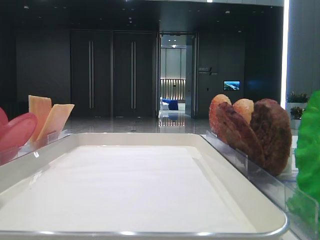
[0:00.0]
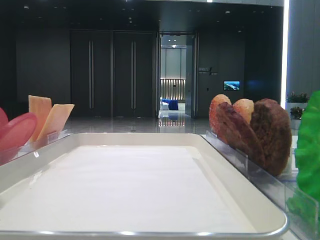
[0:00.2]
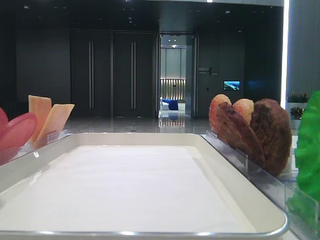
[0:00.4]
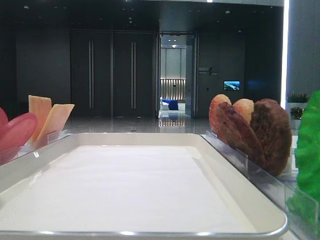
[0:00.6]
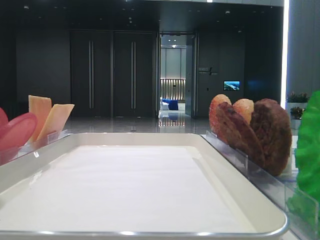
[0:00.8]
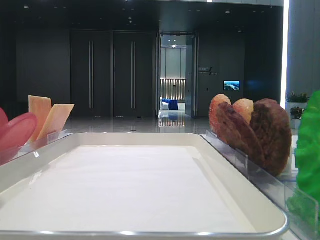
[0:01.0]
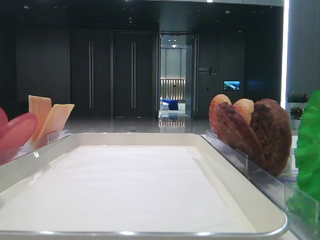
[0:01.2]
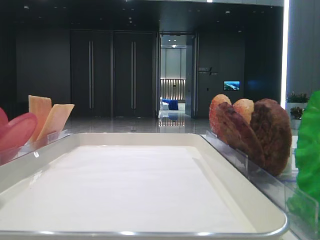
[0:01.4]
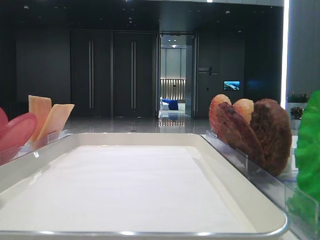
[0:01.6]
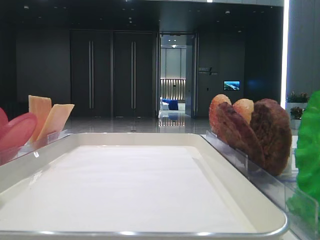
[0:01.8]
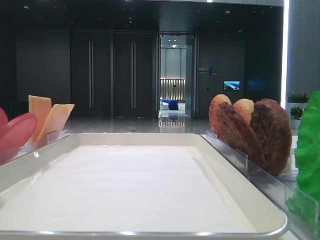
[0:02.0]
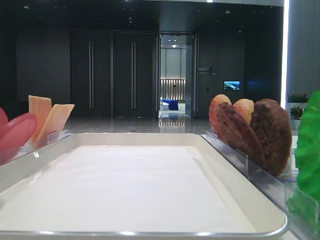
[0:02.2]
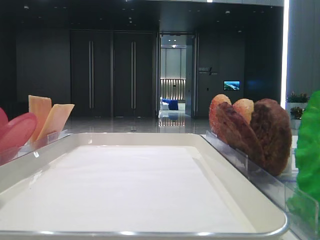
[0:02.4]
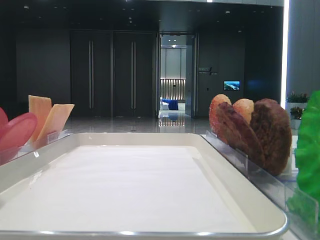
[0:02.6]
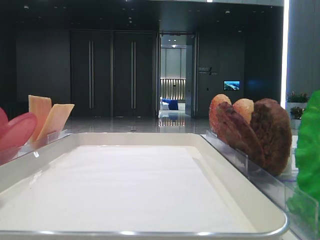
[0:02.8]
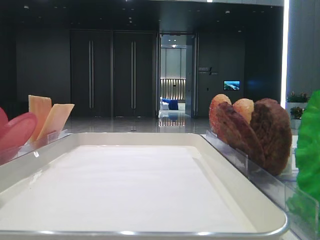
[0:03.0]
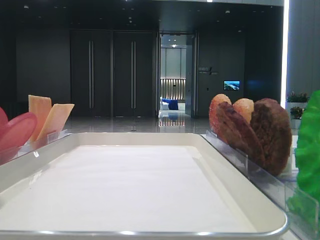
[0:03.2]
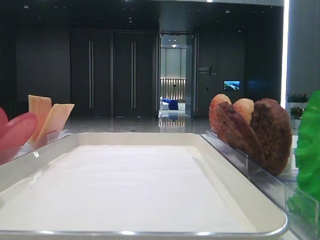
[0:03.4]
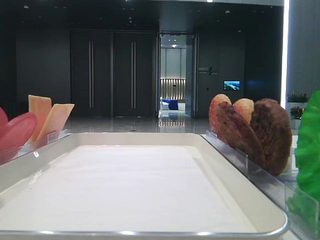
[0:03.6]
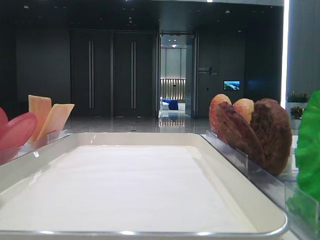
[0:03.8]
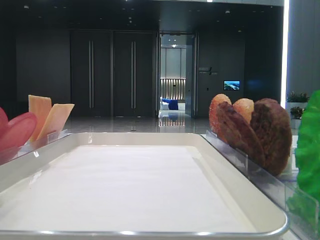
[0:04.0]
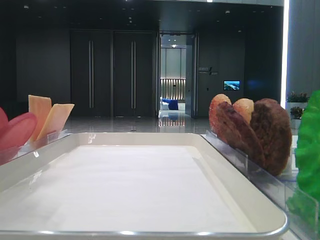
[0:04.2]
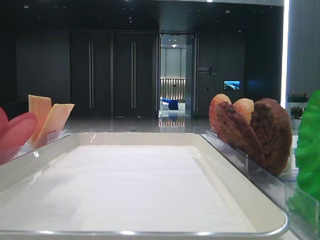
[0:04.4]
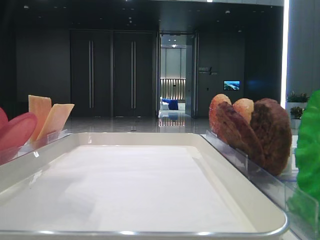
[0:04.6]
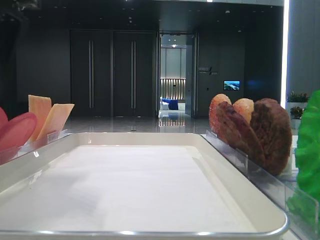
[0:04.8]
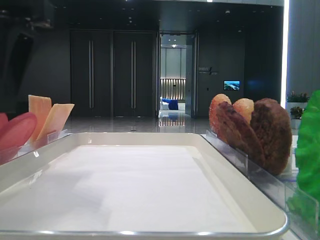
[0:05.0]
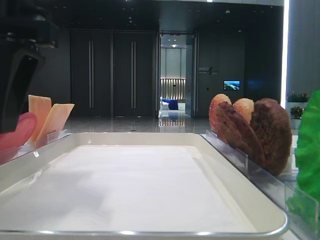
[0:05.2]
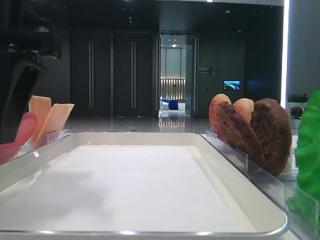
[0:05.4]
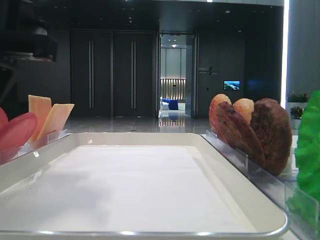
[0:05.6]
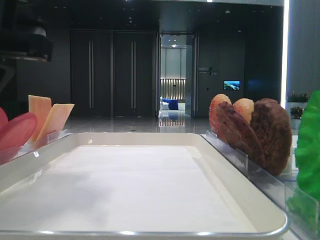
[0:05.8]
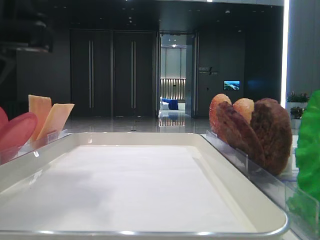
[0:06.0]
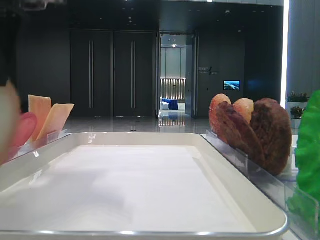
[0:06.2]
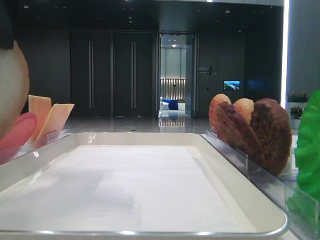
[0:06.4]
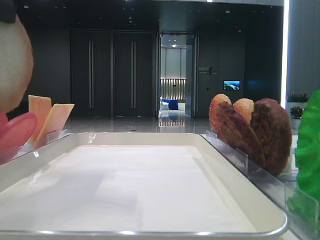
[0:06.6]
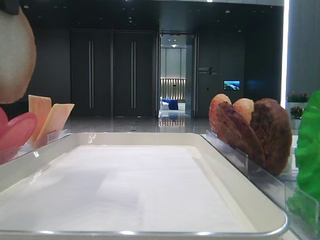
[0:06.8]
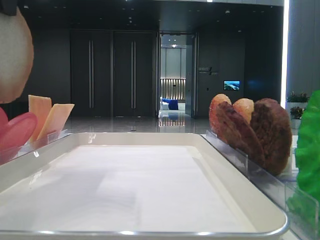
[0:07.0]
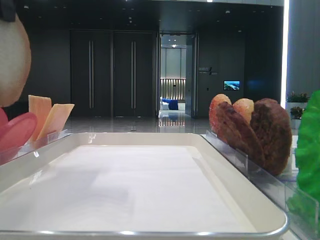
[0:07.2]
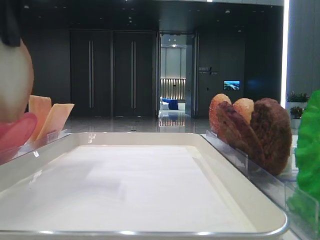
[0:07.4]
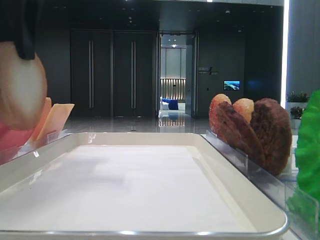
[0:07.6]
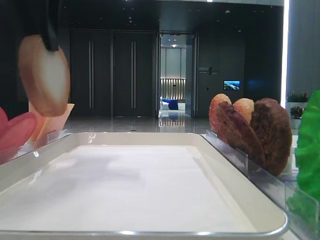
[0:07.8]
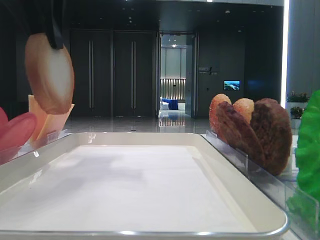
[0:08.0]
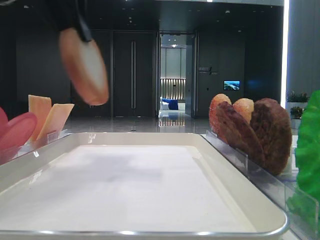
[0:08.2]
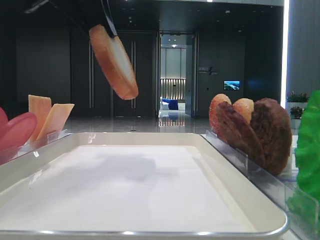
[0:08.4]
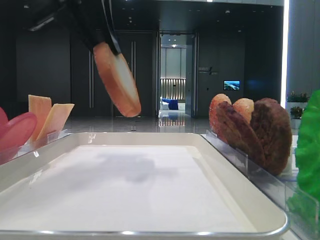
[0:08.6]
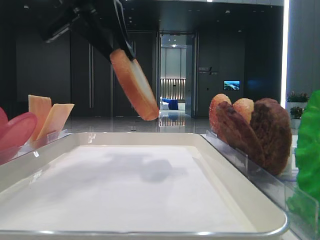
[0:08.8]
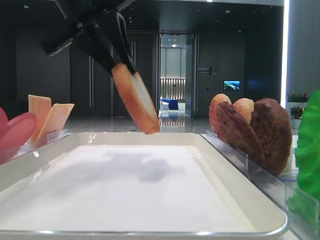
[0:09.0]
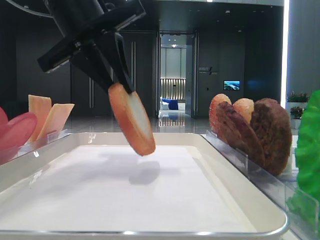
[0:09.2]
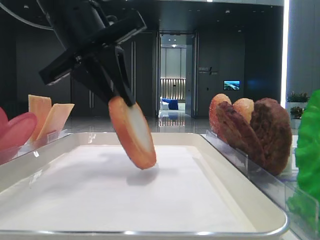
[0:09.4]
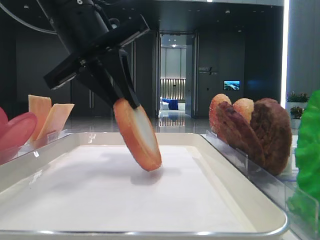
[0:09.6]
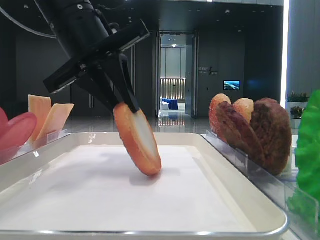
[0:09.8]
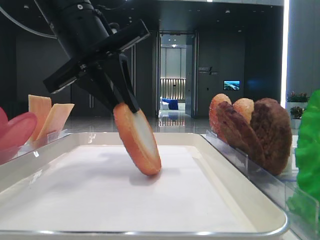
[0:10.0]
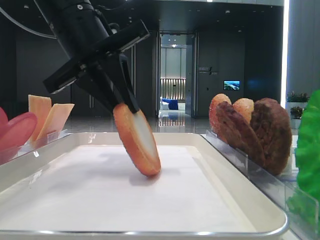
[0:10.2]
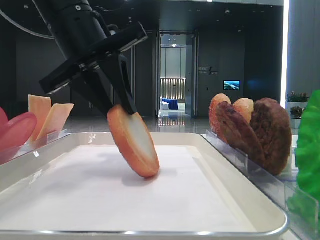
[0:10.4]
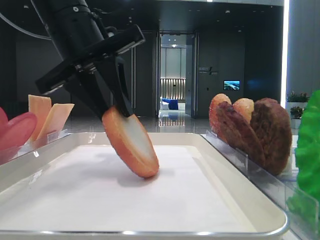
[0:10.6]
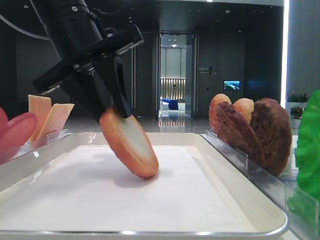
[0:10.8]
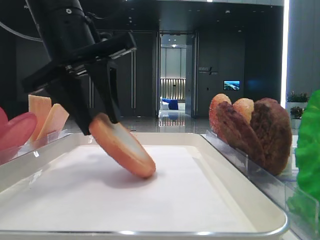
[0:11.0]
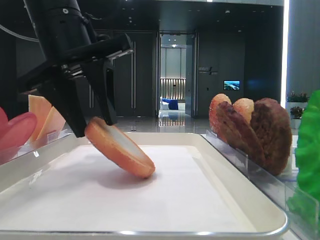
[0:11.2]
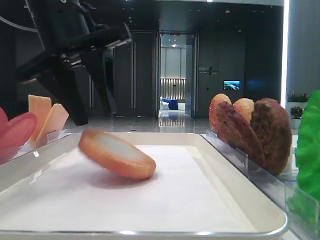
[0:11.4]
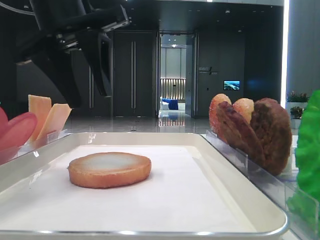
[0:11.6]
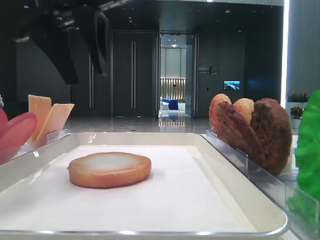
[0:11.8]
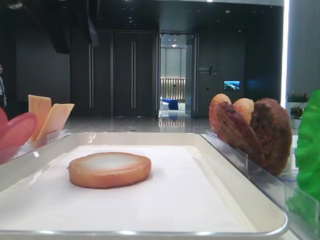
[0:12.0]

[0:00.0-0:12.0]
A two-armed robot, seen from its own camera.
Step, 0:00.0 to 0:06.0: Pick up the bottom bread with the left hand.
Step, 0:06.2 to 0:11.4: Place the bread on the tray with the left hand.
0:03.0 to 0:04.4: The left gripper goes roughly 15 cm to the right and forward.
0:04.4 to 0:06.0: The left gripper goes roughly 5 cm downward, and closes.
0:06.0 to 0:07.6: The left gripper moves upward, roughly 5 cm.
0:07.6 to 0:09.0: The left gripper is displaced to the right by approximately 5 cm.
0:09.0 to 0:10.4: The left gripper goes some 5 cm downward.
0:10.4 to 0:12.0: The left gripper heads upward, covering some 10 cm.

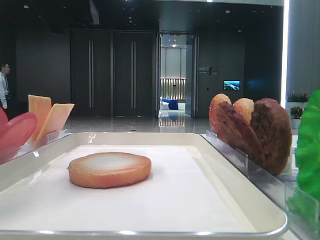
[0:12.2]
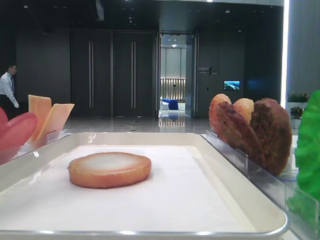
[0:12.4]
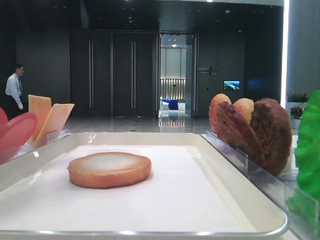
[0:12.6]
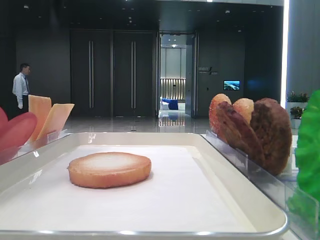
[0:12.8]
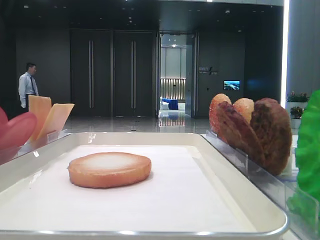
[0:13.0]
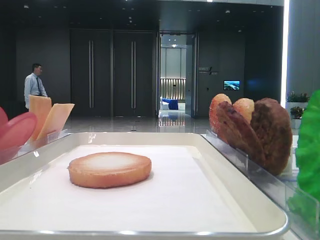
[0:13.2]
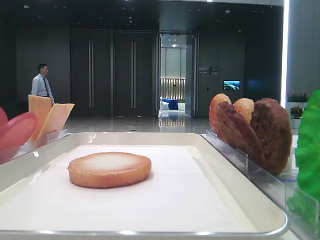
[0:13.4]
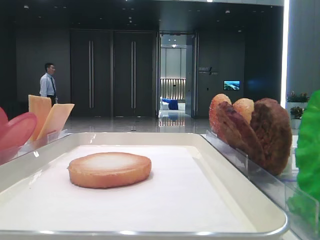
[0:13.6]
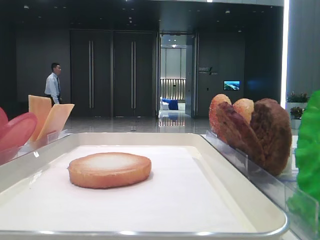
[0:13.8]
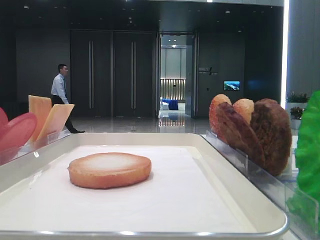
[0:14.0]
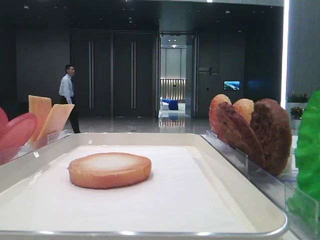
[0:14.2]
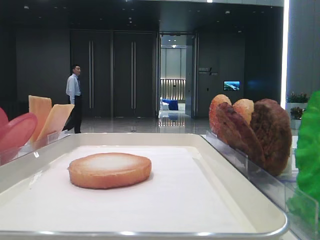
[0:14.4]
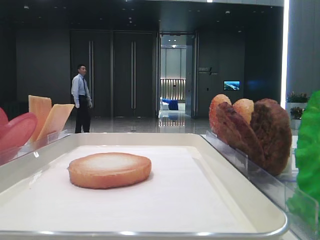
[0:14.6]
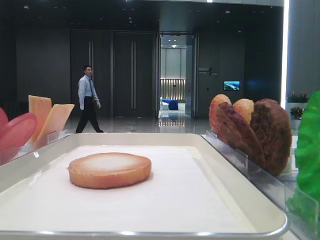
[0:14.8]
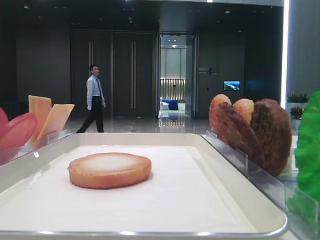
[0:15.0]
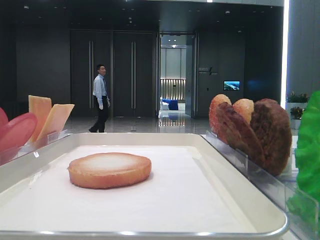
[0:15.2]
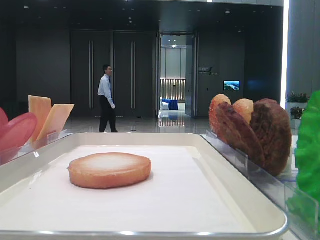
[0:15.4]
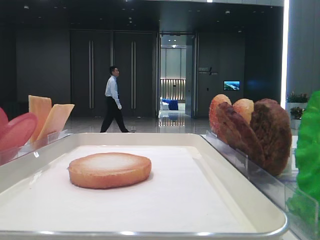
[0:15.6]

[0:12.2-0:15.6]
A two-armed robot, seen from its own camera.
0:12.2 to 0:13.8: The left gripper heads to the left and backward, covering some 25 cm, and opens.
0:13.8 to 0:15.6: The left gripper travels backward by approximately 15 cm.

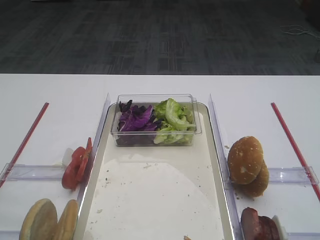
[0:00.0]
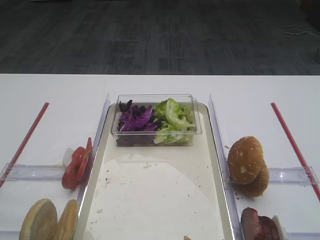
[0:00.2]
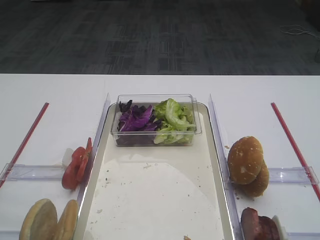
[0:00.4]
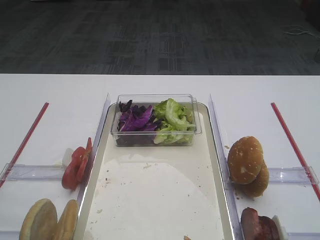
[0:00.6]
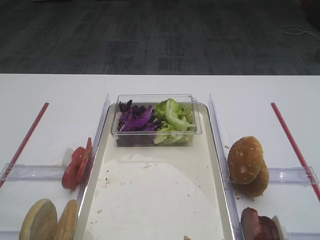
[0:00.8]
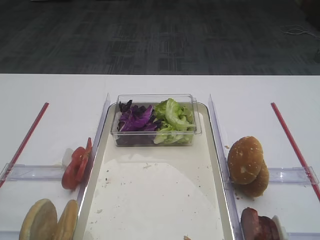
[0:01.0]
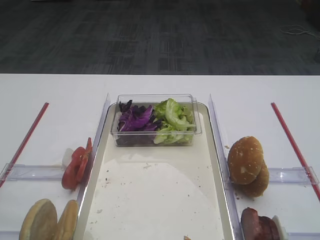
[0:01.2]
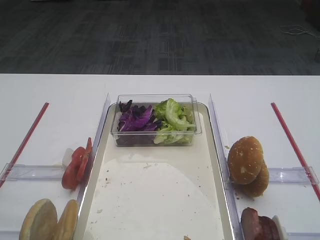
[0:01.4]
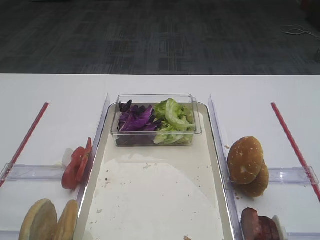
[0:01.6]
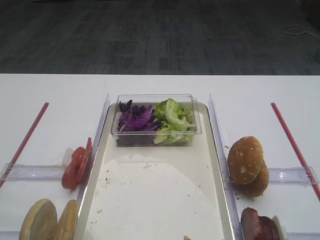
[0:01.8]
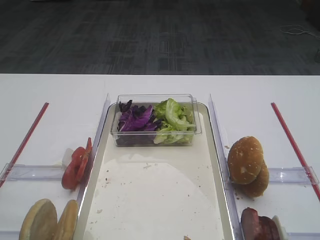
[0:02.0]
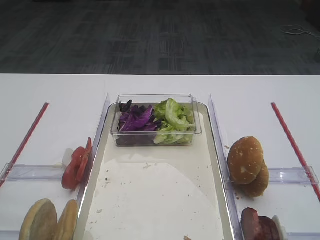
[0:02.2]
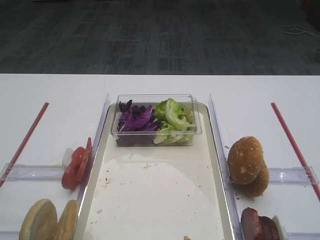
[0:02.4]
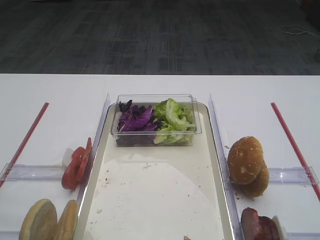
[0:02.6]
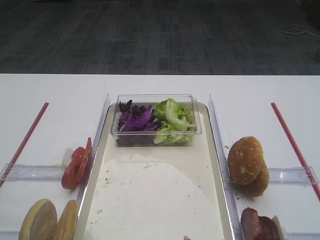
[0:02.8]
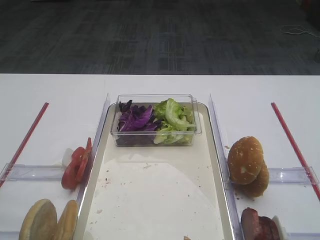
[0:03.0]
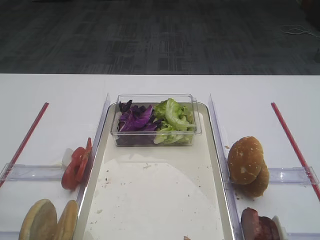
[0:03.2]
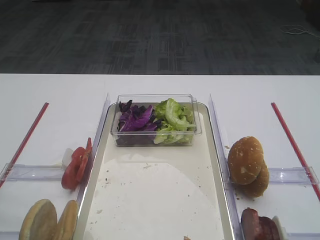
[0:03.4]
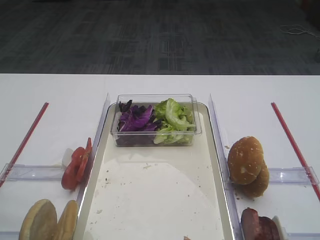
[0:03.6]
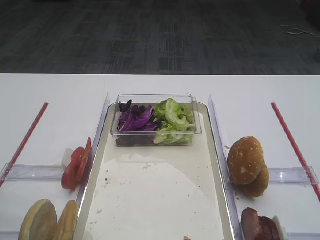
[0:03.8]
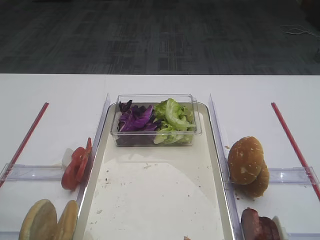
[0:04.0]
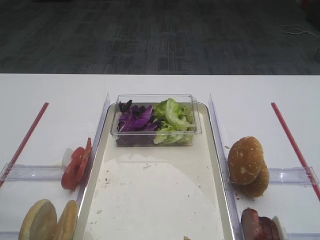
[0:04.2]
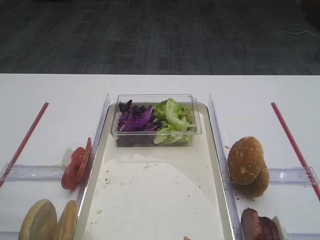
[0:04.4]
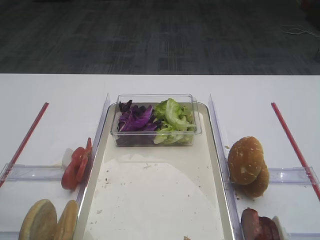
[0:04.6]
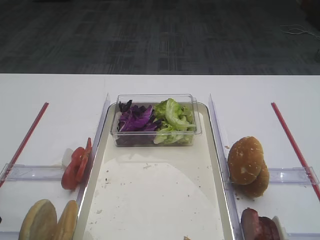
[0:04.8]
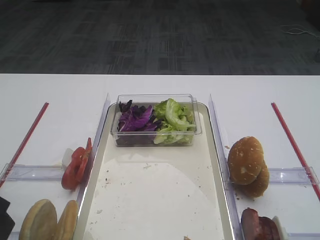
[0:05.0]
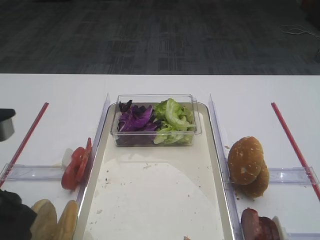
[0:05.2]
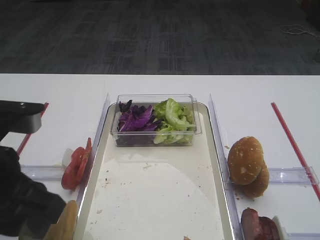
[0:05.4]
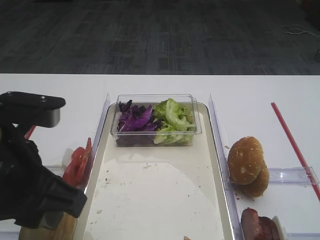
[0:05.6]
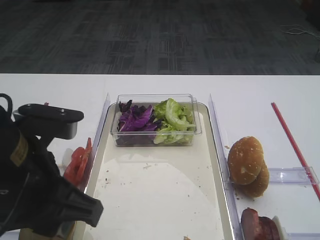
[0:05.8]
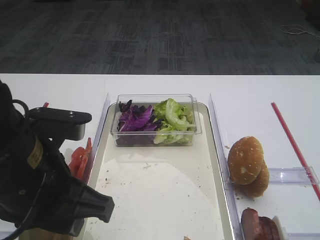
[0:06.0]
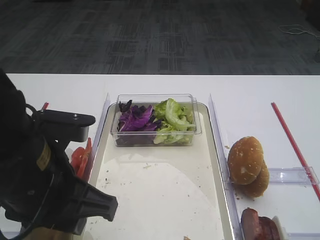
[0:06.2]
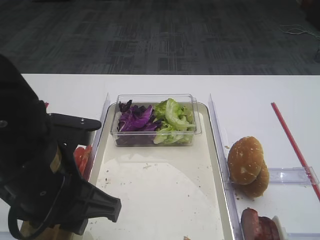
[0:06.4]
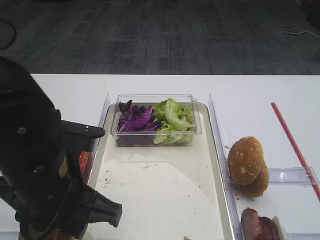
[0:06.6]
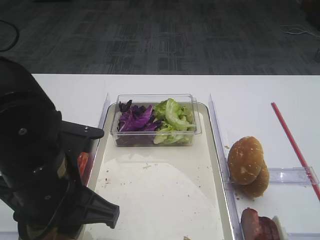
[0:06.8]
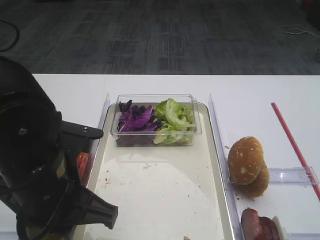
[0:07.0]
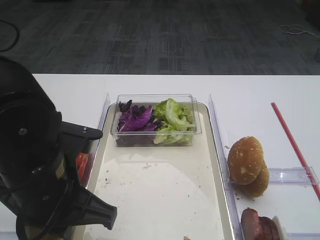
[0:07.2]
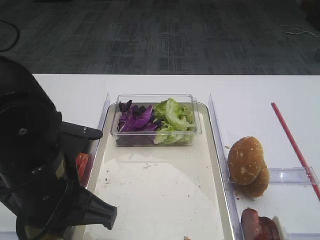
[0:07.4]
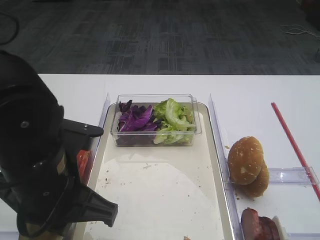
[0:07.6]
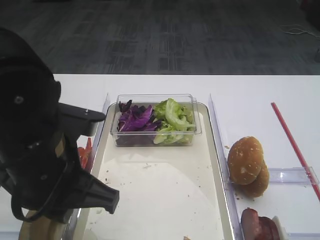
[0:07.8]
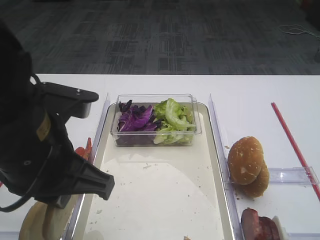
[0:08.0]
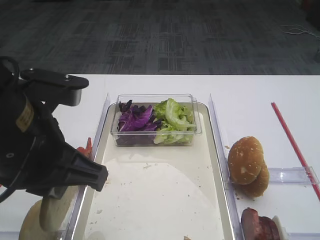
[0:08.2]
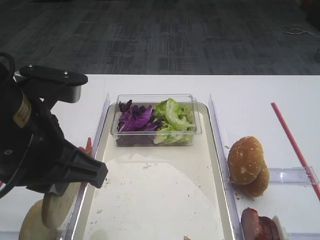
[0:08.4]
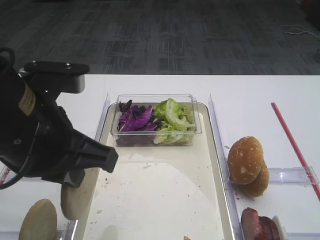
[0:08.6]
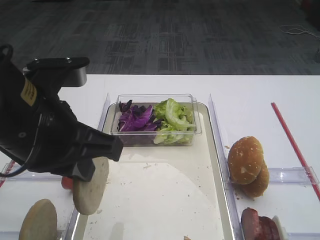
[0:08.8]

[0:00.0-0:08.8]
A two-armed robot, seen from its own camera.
Step, 0:00.0 to 0:08.2: Pick up the bread slice with the left gripper.
0:04.4 to 0:05.8: The left gripper moves to the right, about 10 cm.
0:05.8 to 0:07.4: The left gripper closes up.
0:07.4 to 0:08.8: The left gripper travels upward by about 5 cm.
